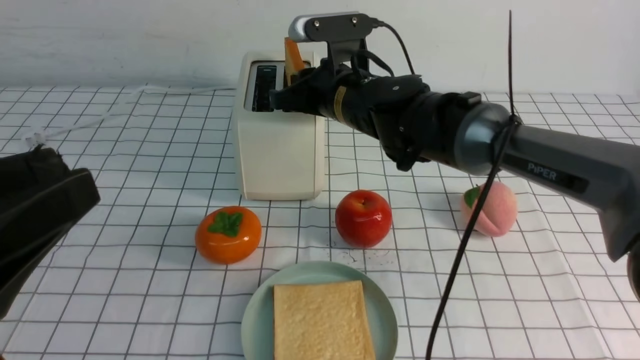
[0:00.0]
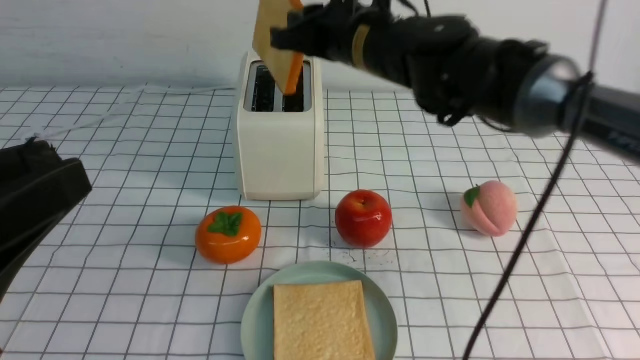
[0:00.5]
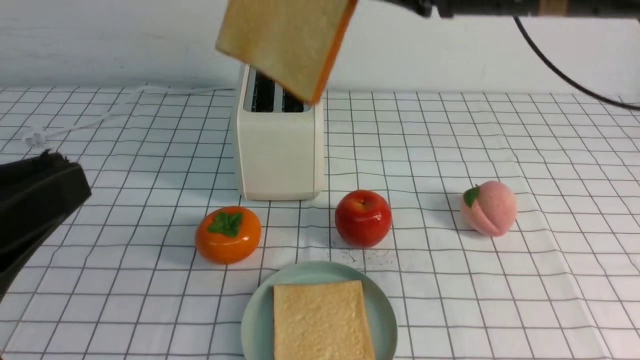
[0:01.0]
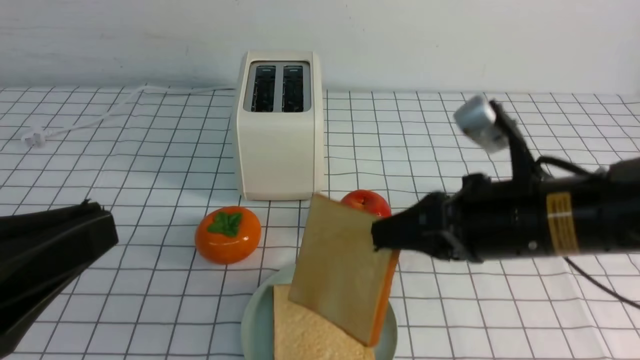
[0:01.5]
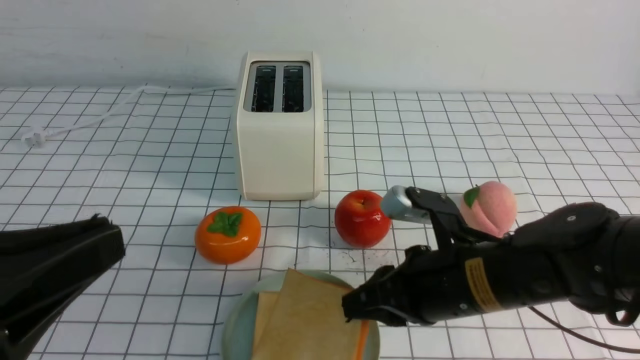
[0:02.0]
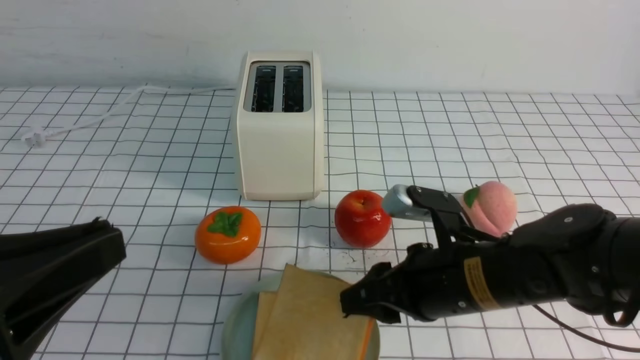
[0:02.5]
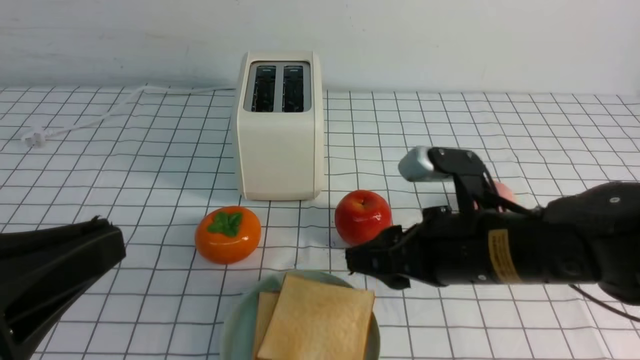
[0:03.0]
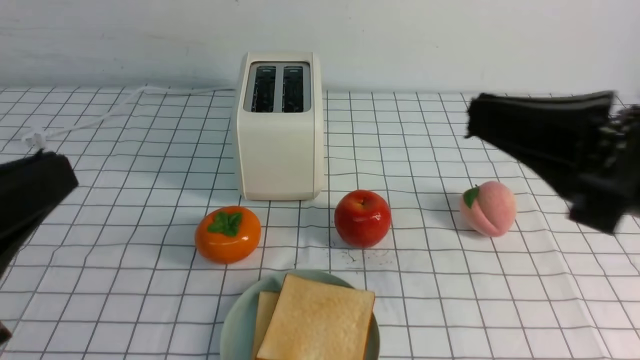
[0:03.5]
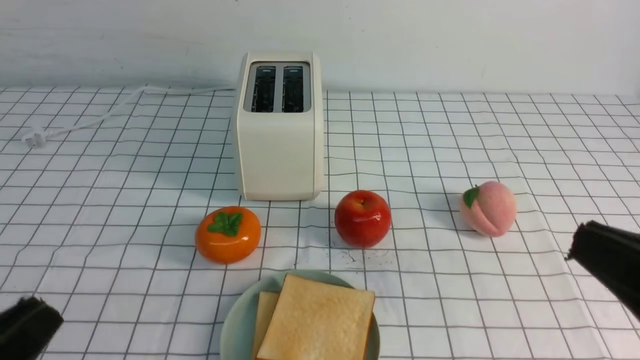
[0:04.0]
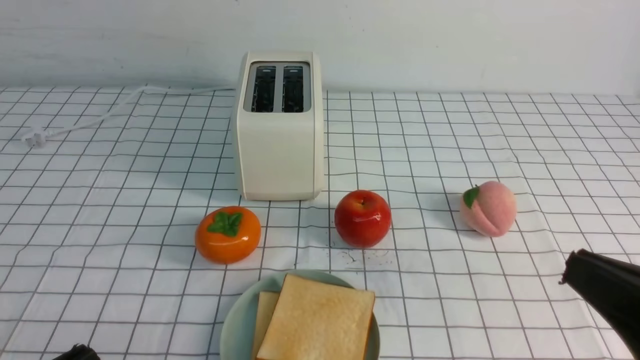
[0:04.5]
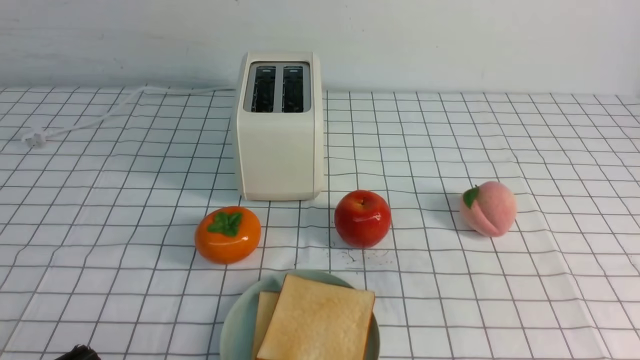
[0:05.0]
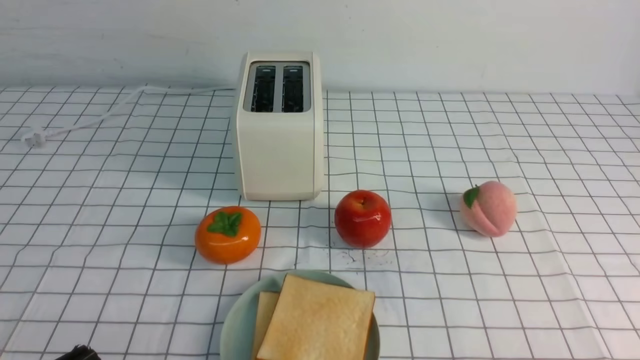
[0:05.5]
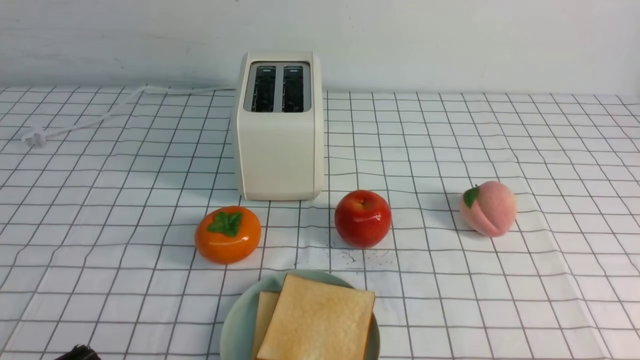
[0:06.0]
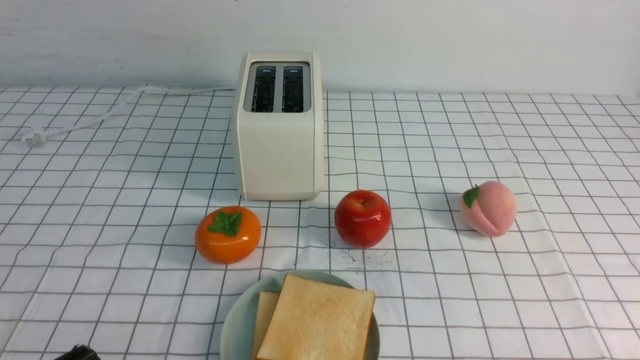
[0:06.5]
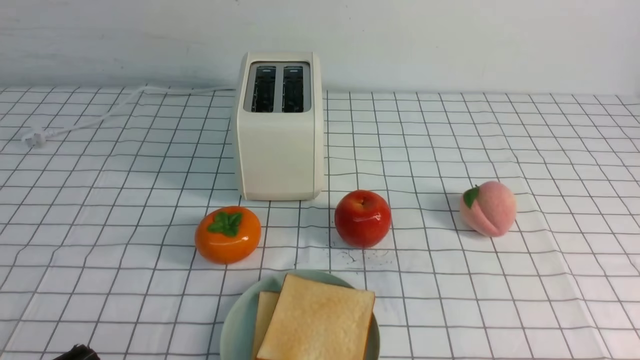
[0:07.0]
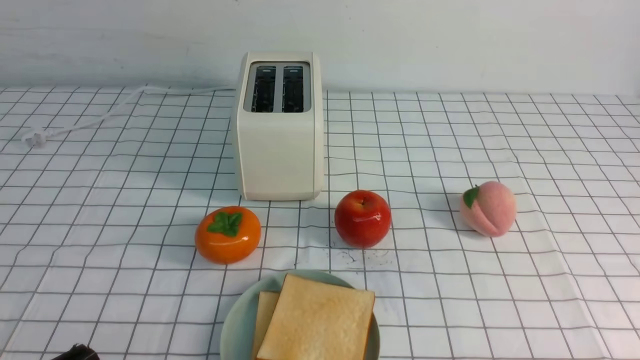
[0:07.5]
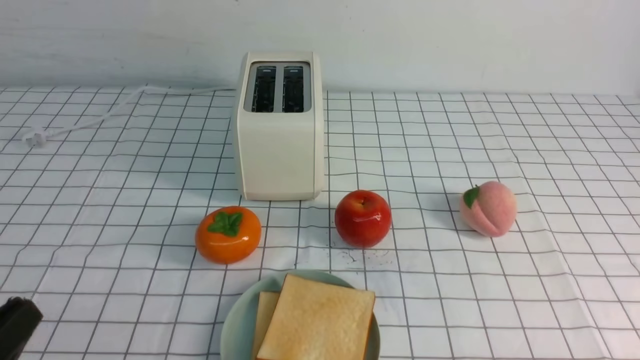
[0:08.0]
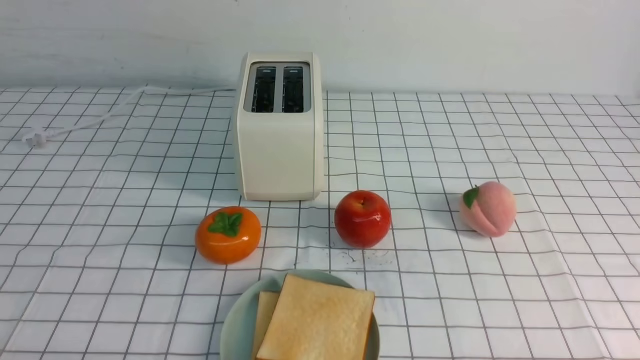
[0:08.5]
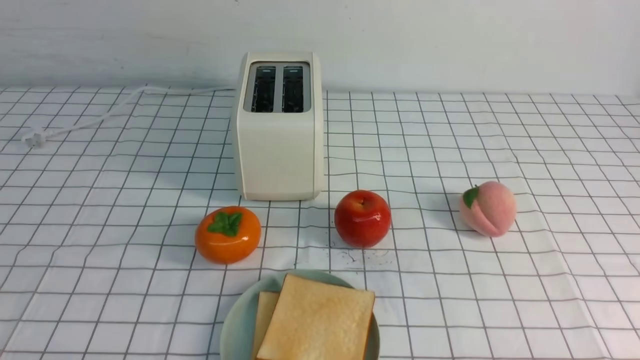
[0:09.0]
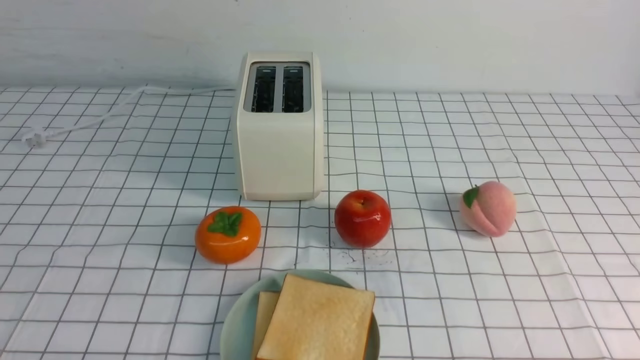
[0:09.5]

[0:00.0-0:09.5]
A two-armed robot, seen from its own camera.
Task of the whole recording: take toasted bread from bread machine on white checkered table place on plate.
Step, 0:01.0 to 0:03.0: use the right arm to put a slice of bread into the plate.
0:00.0 to 0:02.0: The right gripper travels backward and to the right by approximately 20 cm, and moves about 15 cm upward and comes back. The left gripper closes its fingers.
0:02.0 to 0:04.0: The left gripper travels downward by about 5 cm; the right gripper shifts about 20 cm backward, to the right and upward, and opens, then closes again.
0:04.0 to 0:05.5: The left gripper ends up about 5 cm from where it was. Meanwhile the right gripper travels downward and to the right by approximately 10 cm.
